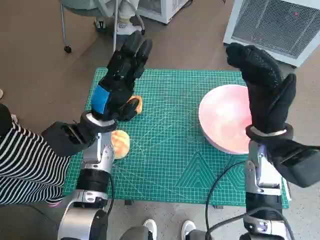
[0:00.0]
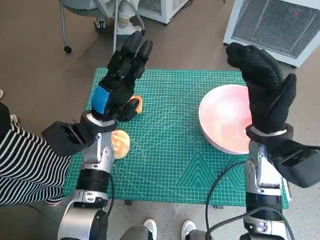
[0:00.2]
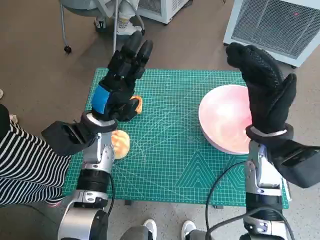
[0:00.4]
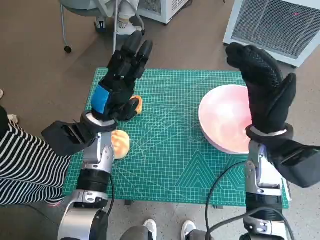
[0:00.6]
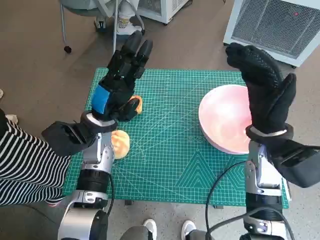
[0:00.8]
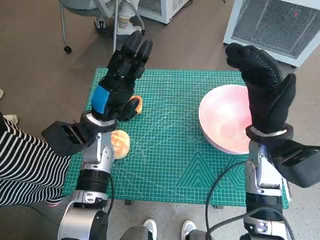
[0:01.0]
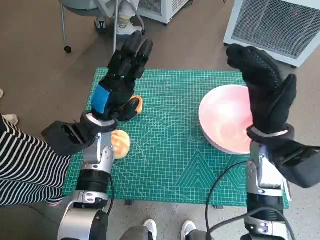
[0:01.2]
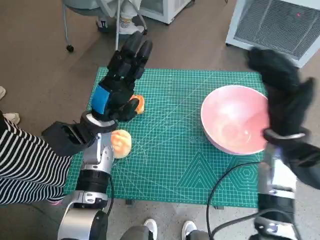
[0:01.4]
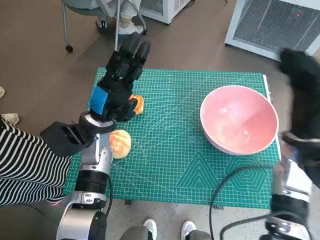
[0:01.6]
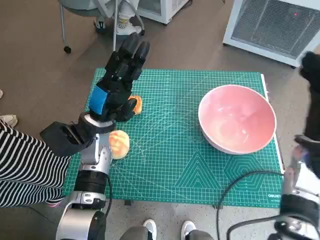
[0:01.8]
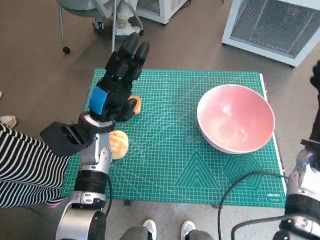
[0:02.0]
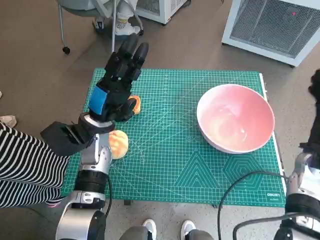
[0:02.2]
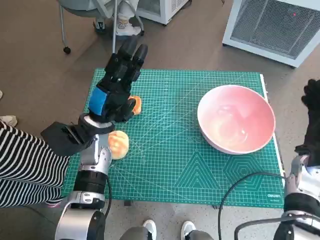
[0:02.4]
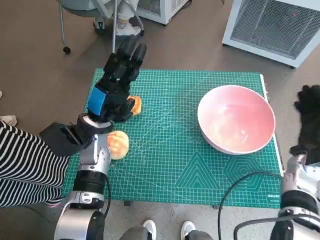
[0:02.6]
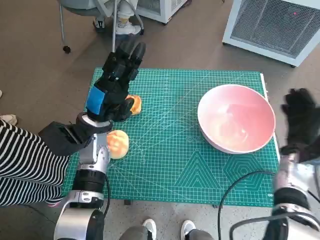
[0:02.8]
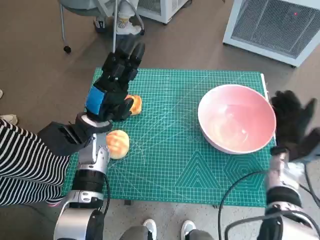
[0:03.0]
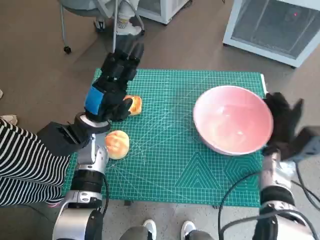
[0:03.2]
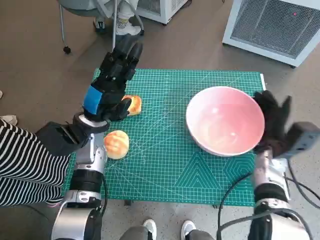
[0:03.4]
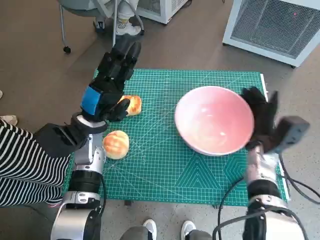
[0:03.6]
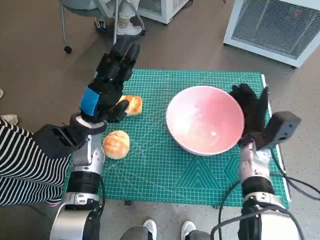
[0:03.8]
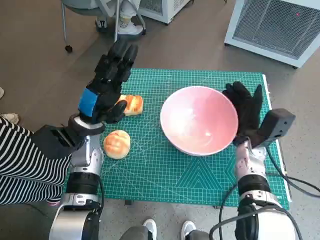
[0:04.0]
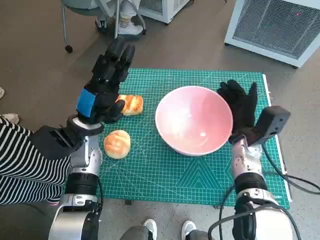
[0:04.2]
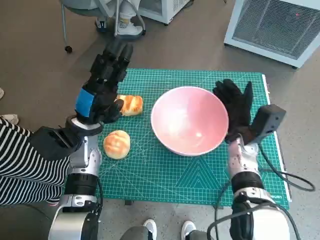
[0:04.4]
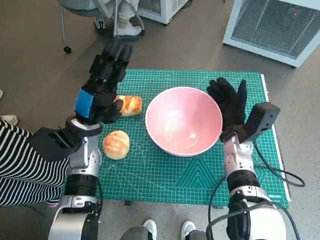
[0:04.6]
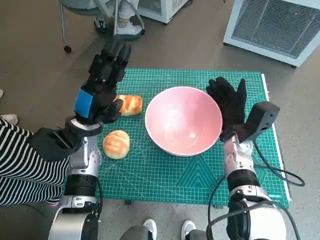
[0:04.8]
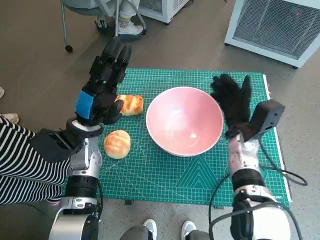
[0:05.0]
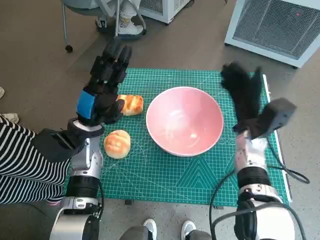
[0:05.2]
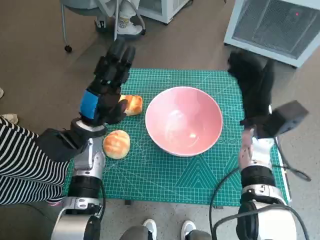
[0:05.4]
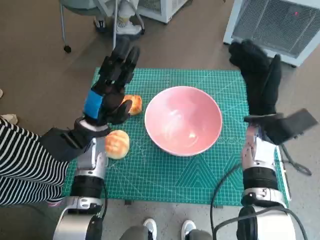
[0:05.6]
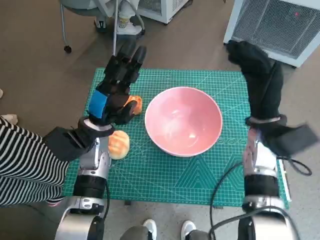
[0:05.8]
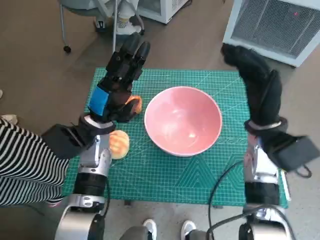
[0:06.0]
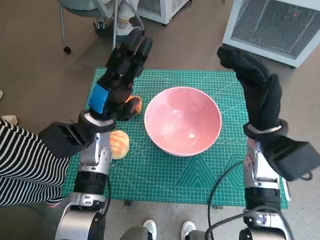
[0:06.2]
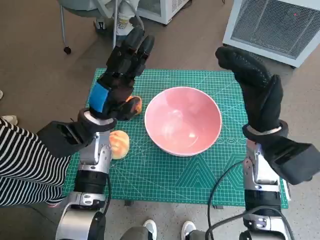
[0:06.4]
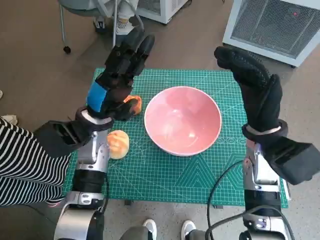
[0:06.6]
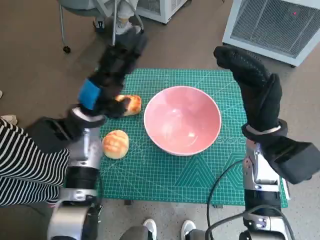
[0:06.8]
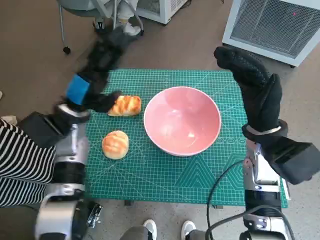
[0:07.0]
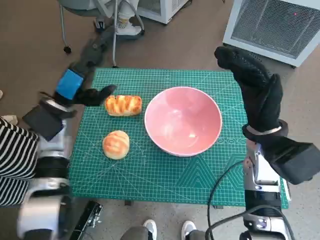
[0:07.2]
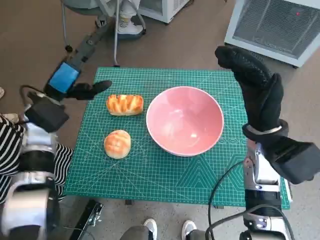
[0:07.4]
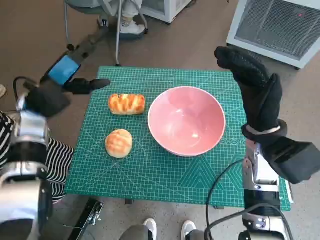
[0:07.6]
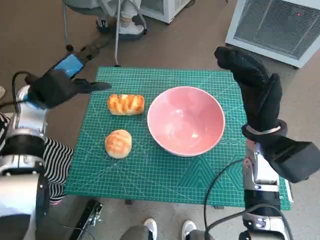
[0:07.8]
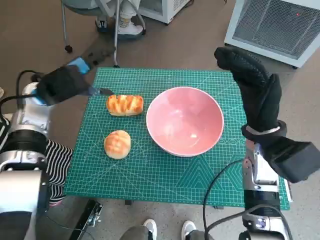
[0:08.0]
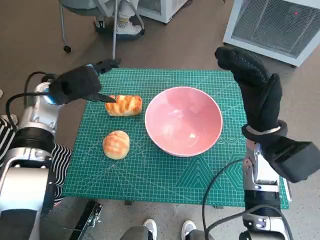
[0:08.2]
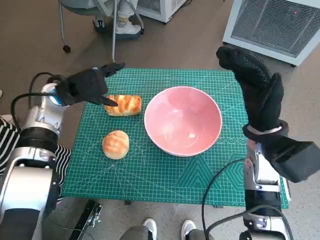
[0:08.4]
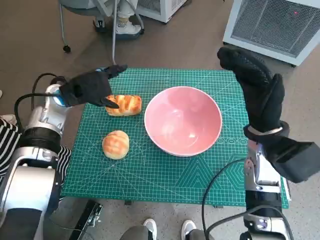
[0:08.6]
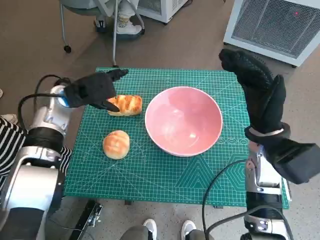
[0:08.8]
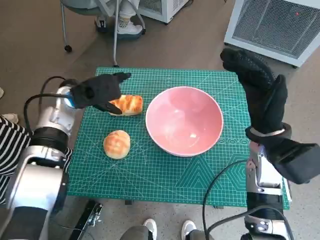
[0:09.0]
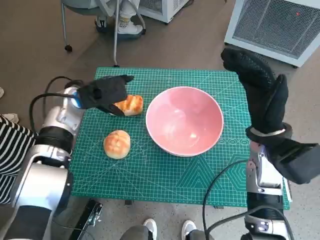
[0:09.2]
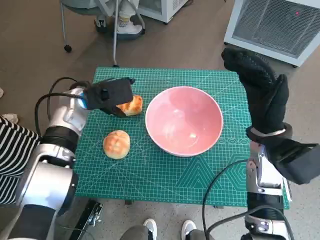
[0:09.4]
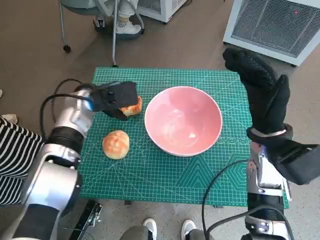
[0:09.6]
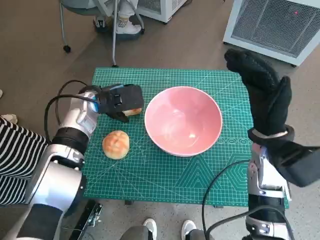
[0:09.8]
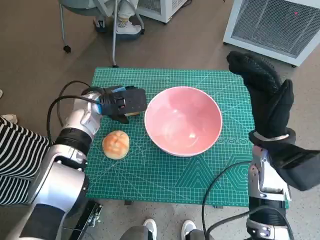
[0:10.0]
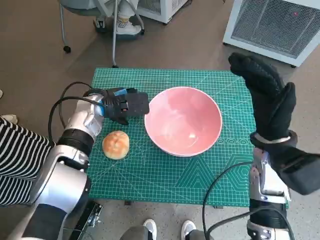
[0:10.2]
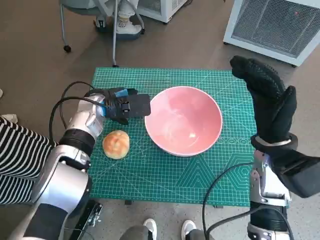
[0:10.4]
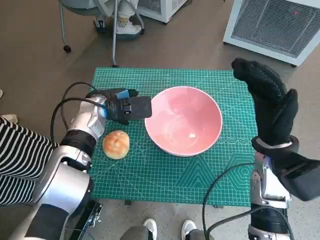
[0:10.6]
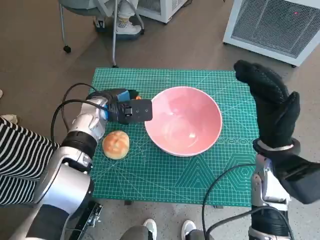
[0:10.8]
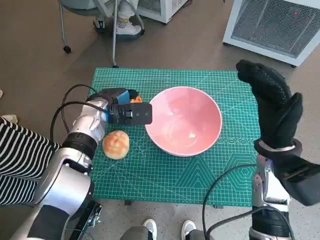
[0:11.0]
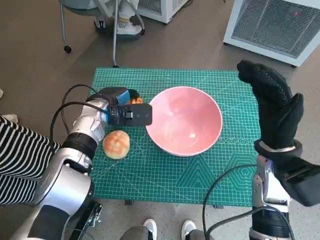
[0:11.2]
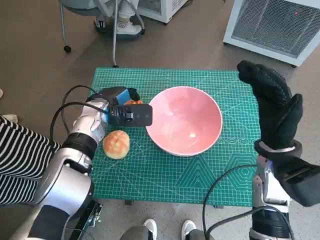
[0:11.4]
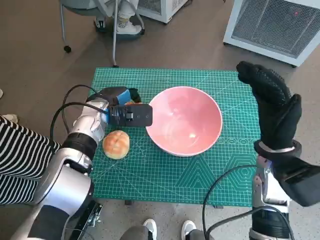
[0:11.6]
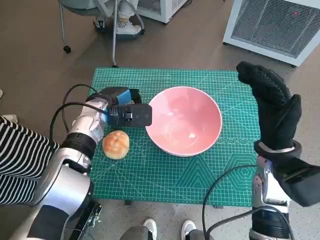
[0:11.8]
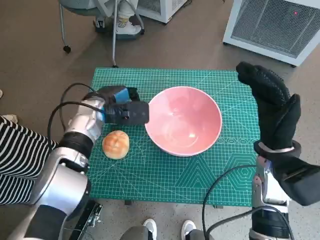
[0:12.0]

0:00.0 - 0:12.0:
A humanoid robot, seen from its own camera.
Task of the whole recording: Push the bowl into the center of the table and put the bread into the bowl.
Step, 0:00.0 - 0:05.2: Move the pink bowl to the center of table with right hand.
Step, 0:05.4 - 0:11.4: Grasp the long bread with left hand.
0:01.6 - 0:03.0: The right hand heads downward, covering roughly 10 cm.
0:03.0 - 0:04.4: The right hand moves to the left, about 10 cm.
0:04.4 - 0:06.0: The right hand heads upward, covering some 10 cm.
0:06.0 - 0:07.6: The left hand is displaced to the left and upward by about 10 cm.
0:07.6 - 0:09.0: The left hand ends up some 5 cm from where it was.
0:09.0 - 0:10.4: The left hand moves to the right, roughly 5 cm.
0:10.4 - 0:12.0: The hands move only a little.

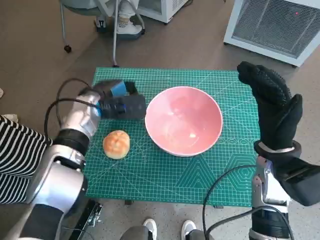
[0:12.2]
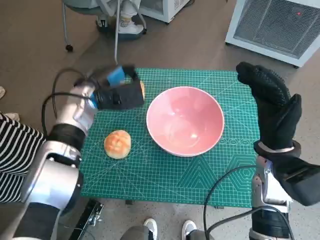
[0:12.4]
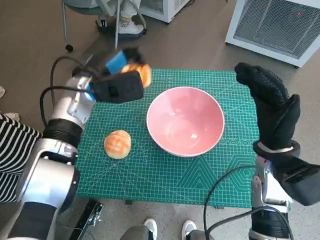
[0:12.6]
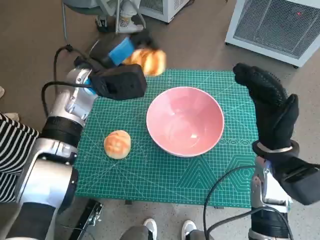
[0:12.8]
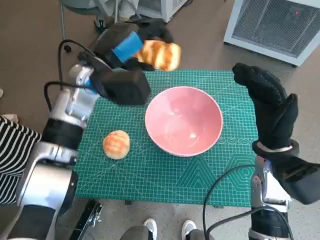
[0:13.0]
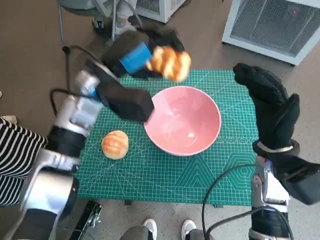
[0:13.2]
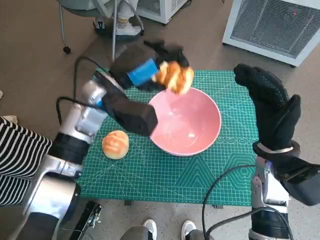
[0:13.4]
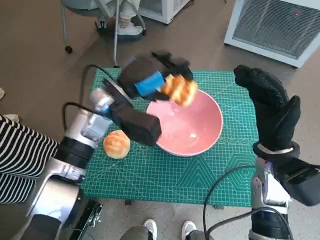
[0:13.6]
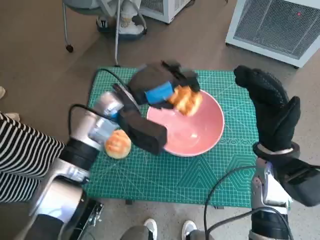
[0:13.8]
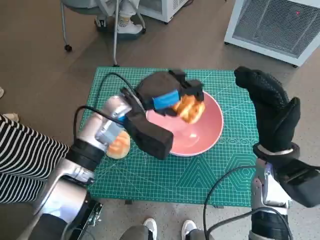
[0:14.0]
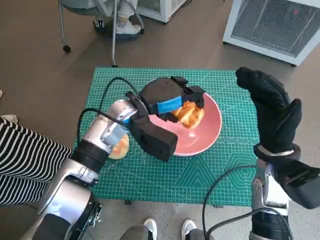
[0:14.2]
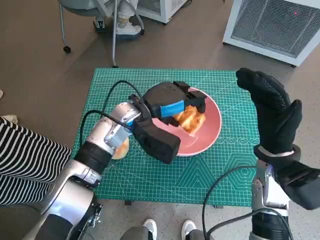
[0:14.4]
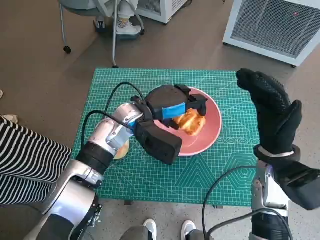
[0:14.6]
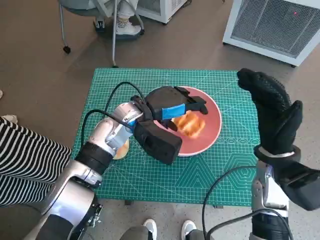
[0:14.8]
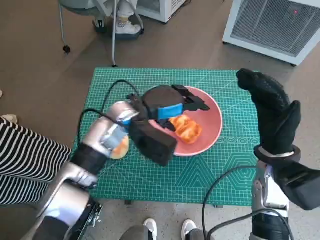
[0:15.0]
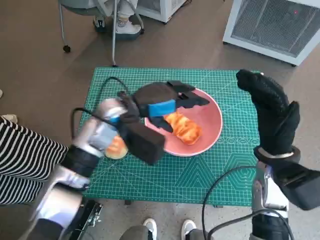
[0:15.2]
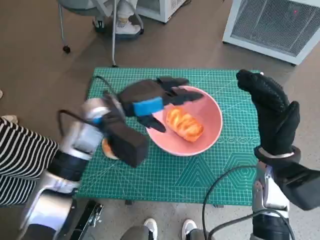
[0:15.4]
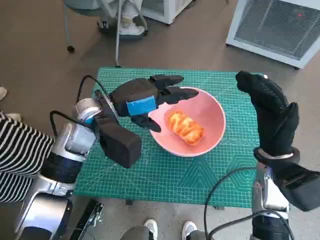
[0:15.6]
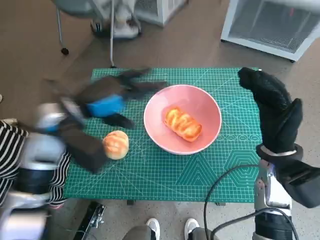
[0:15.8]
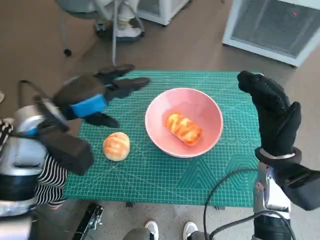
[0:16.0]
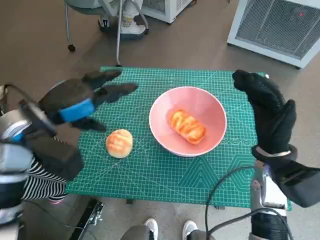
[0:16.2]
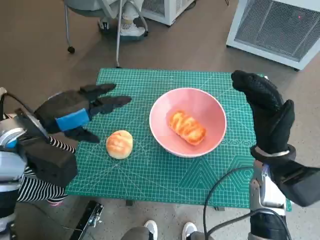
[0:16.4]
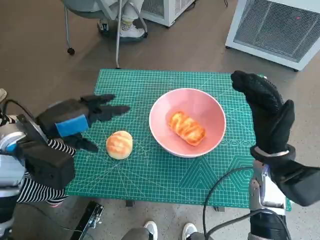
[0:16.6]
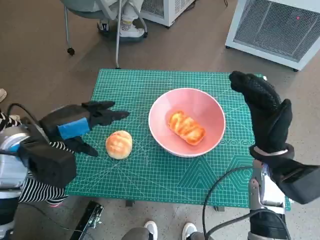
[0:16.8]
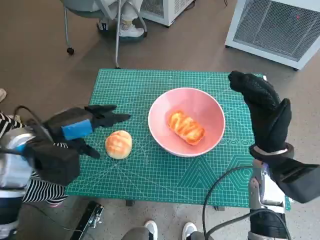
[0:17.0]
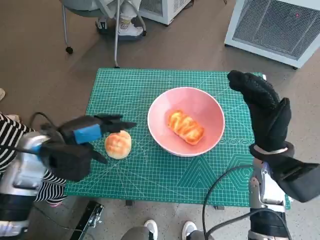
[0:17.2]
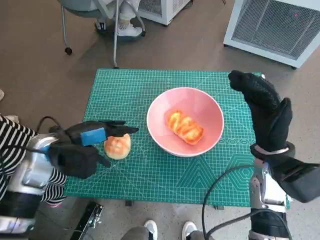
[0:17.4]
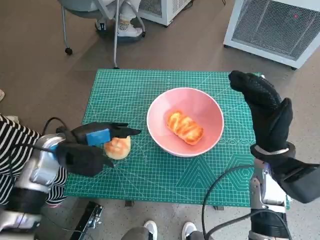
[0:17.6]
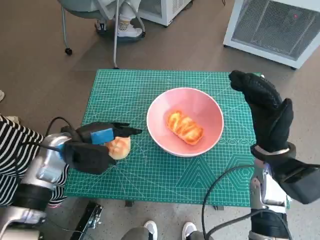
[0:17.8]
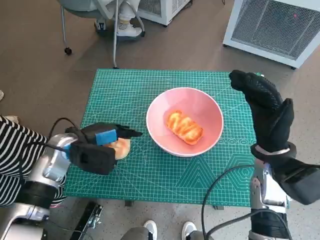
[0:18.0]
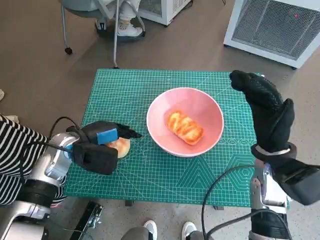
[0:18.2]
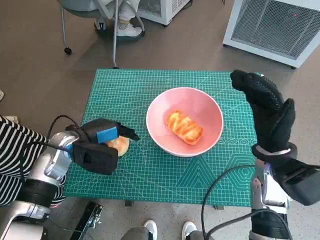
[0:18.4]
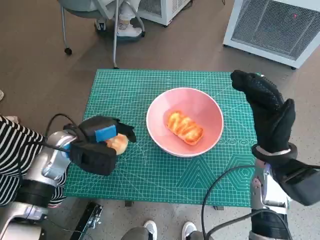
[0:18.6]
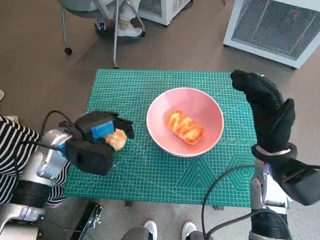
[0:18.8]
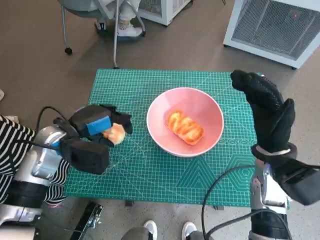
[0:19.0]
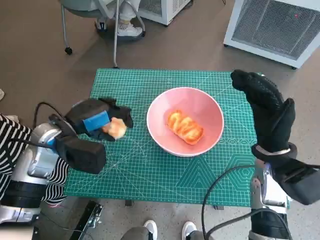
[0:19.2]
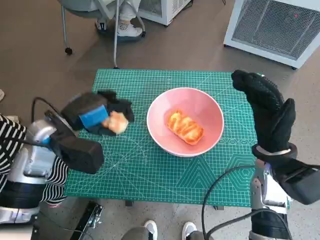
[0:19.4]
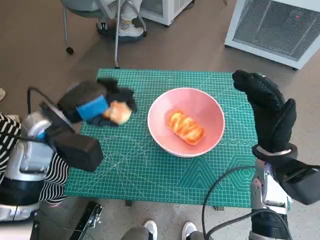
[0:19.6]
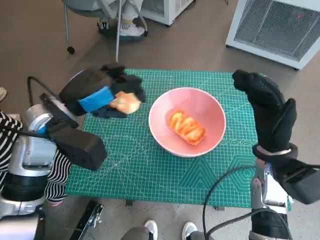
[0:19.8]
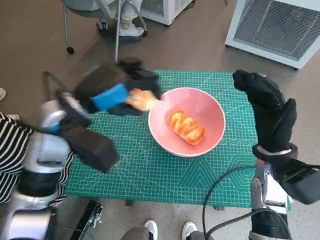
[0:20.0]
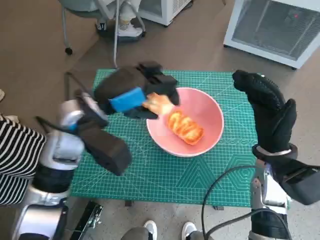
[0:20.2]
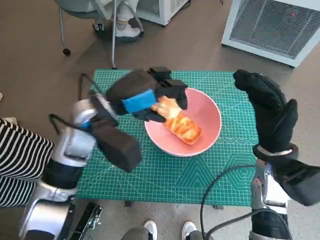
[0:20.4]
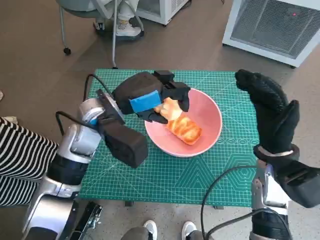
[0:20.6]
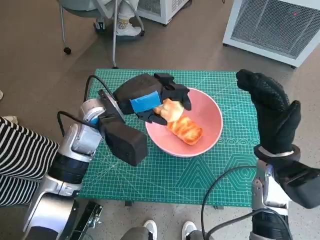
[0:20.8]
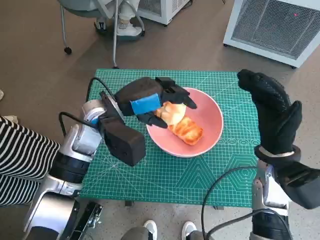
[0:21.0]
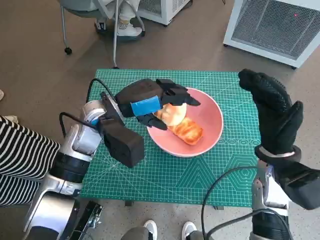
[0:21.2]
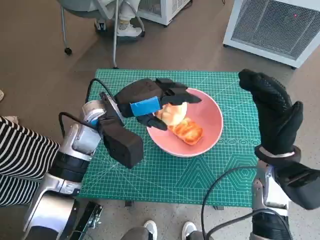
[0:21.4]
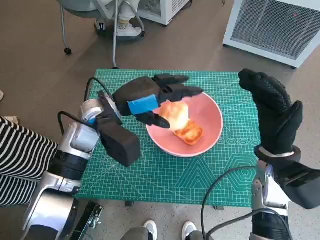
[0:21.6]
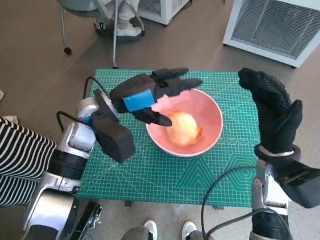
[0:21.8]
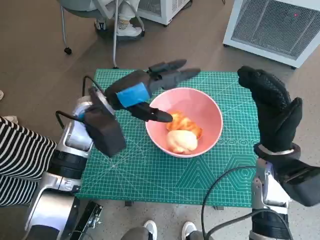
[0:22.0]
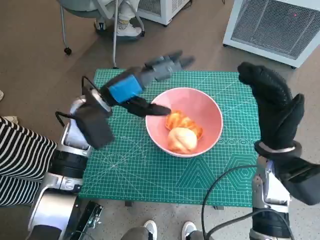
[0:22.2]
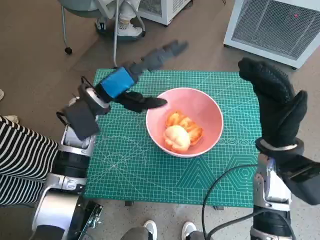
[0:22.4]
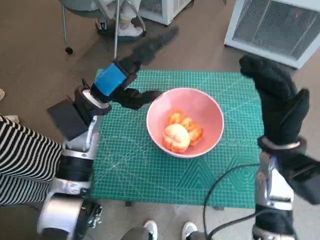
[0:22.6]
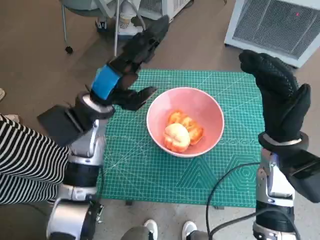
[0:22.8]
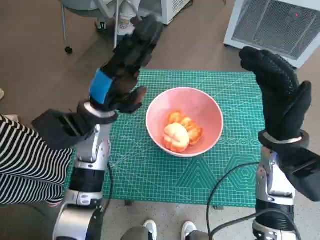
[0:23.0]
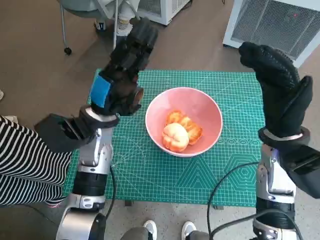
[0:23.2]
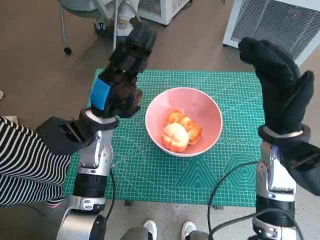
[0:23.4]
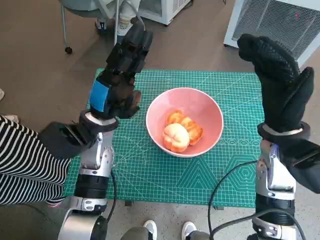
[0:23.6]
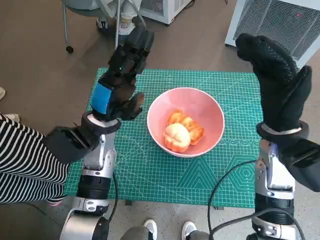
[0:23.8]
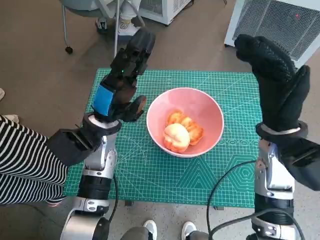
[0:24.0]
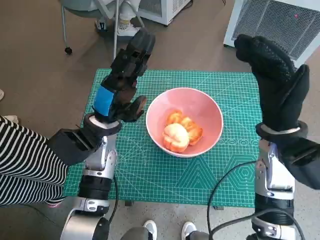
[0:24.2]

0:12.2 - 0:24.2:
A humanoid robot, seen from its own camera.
Task of the whole recording: Push the bowl into the center of the table and put the bread into the bowl.
Step, 0:12.2 - 0:15.4: Place the long bread in pink bowl with left hand.
Step, 0:15.8 - 0:18.4: Grasp the round bread with left hand.
Step, 0:18.6 - 0:22.2: Place the round bread in pink bowl with left hand.
0:12.2 - 0:13.8: The left hand travels to the right and upward by about 10 cm.
0:15.2 - 0:16.6: The left hand travels to the left and backward by some 15 cm.
0:16.6 - 0:18.2: The left hand moves downward, roughly 10 cm.
0:18.2 - 0:19.8: The left hand moves upward, roughly 10 cm.
0:19.8 - 0:21.2: The left hand heads to the right, covering some 5 cm.
0:22.6 - 0:24.2: The left hand goes approximately 5 cm downward.
